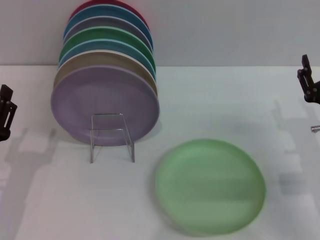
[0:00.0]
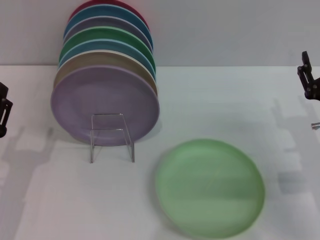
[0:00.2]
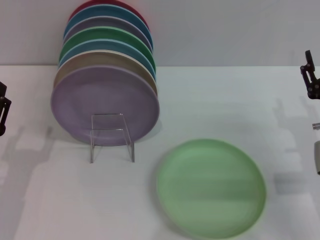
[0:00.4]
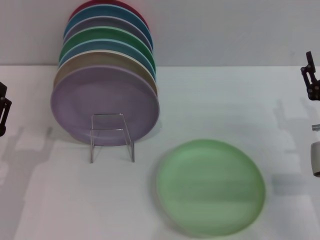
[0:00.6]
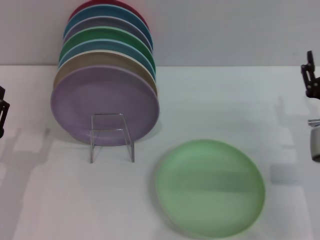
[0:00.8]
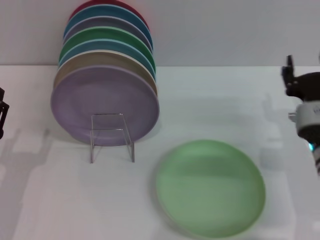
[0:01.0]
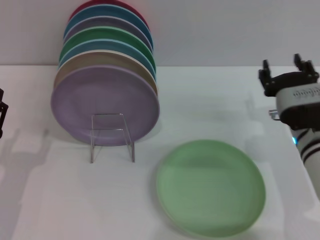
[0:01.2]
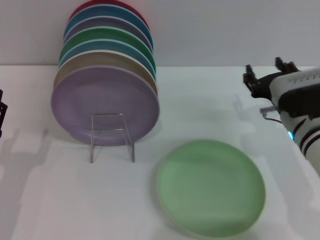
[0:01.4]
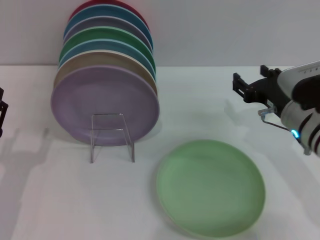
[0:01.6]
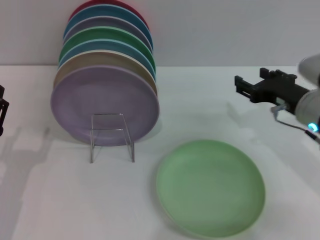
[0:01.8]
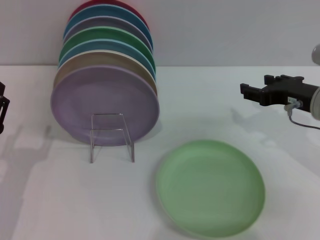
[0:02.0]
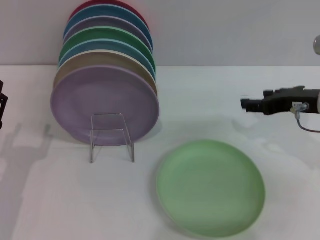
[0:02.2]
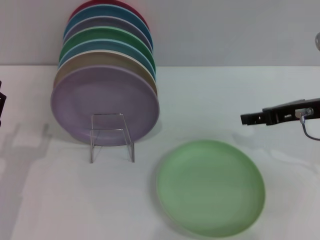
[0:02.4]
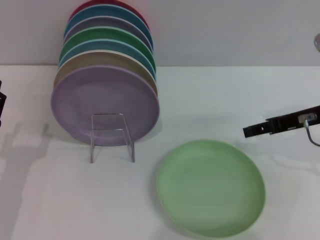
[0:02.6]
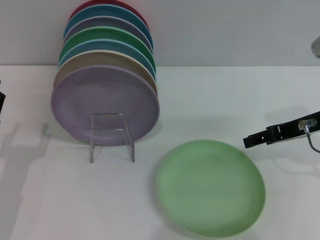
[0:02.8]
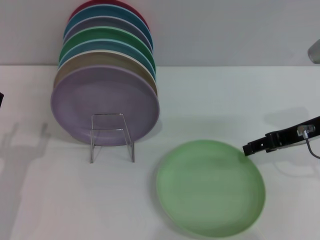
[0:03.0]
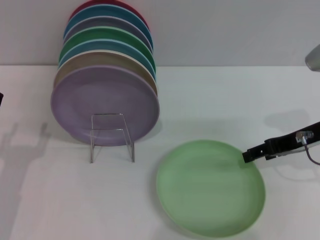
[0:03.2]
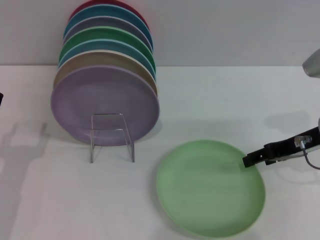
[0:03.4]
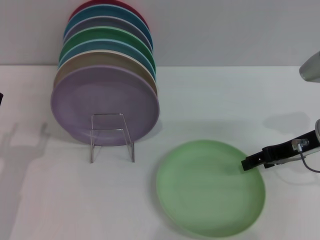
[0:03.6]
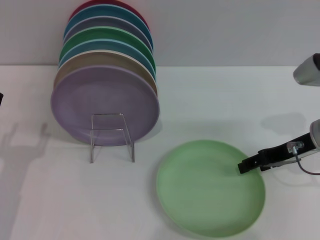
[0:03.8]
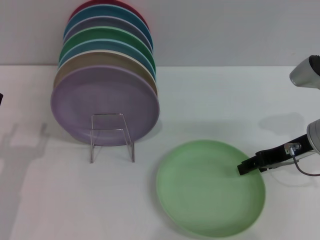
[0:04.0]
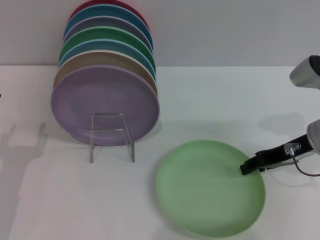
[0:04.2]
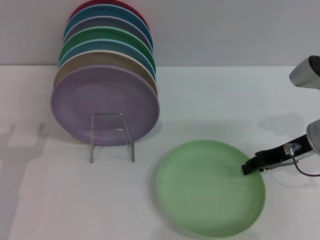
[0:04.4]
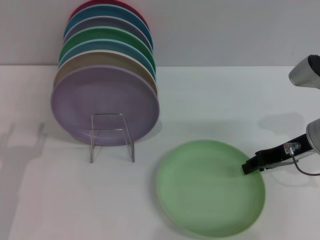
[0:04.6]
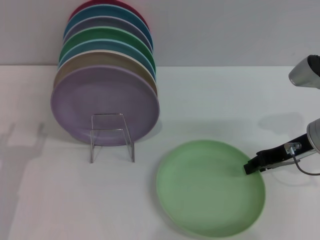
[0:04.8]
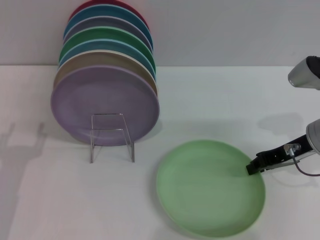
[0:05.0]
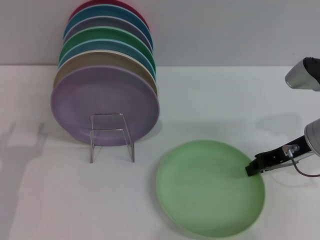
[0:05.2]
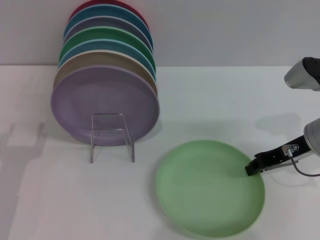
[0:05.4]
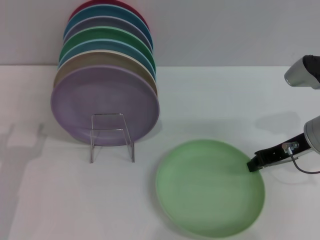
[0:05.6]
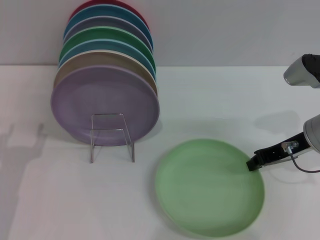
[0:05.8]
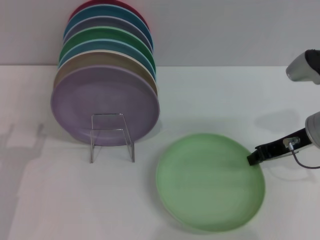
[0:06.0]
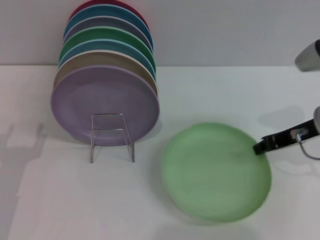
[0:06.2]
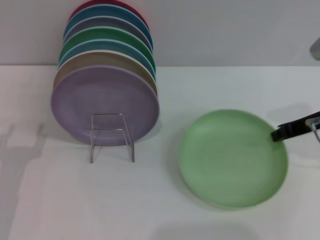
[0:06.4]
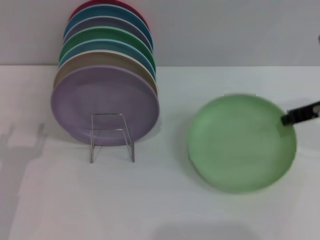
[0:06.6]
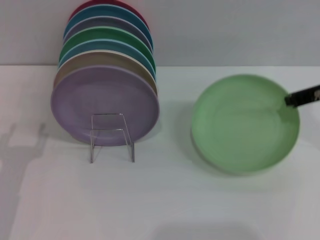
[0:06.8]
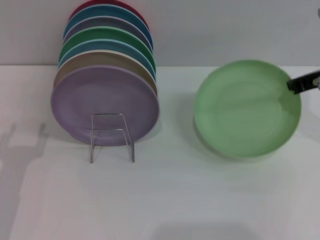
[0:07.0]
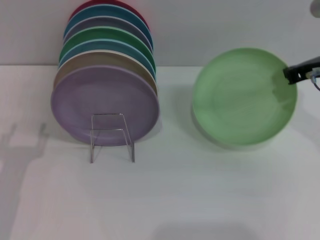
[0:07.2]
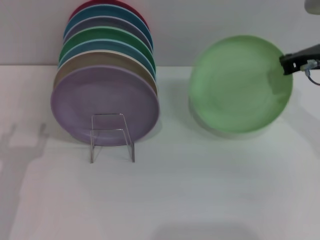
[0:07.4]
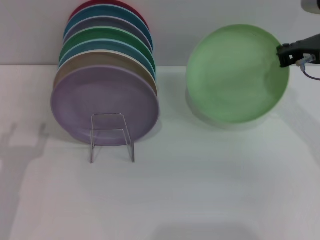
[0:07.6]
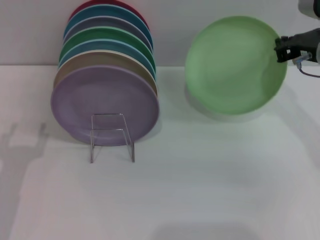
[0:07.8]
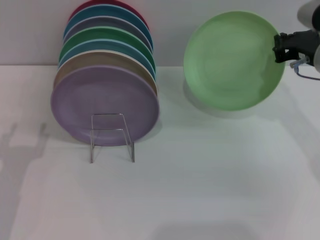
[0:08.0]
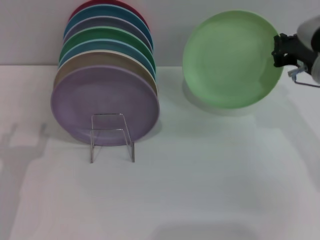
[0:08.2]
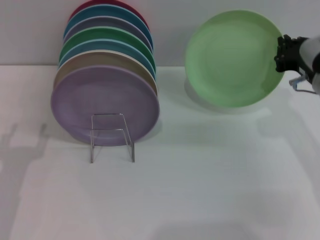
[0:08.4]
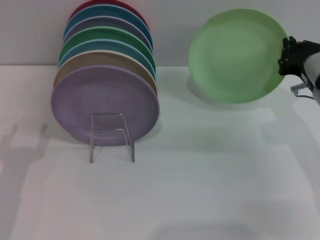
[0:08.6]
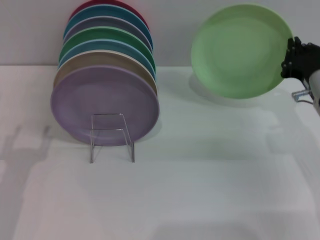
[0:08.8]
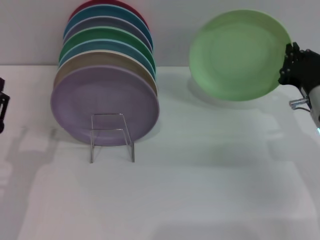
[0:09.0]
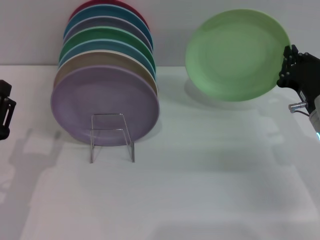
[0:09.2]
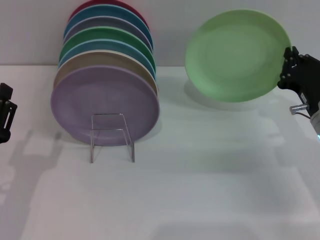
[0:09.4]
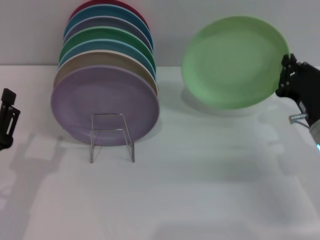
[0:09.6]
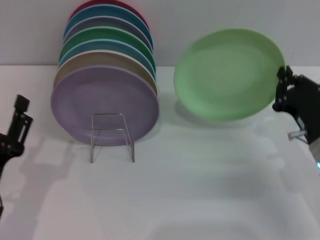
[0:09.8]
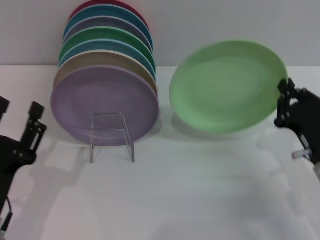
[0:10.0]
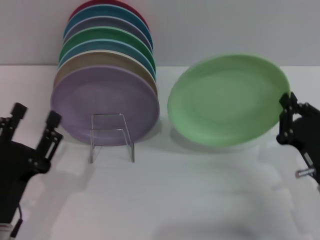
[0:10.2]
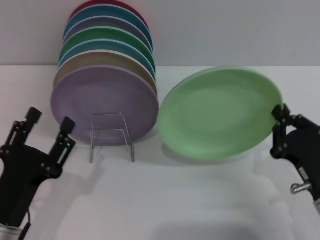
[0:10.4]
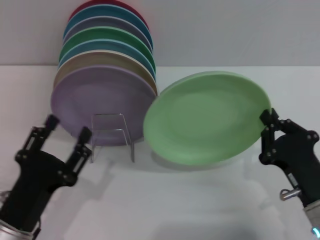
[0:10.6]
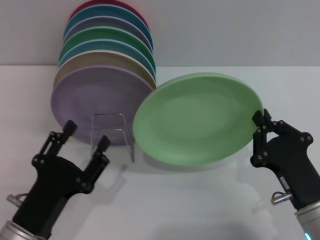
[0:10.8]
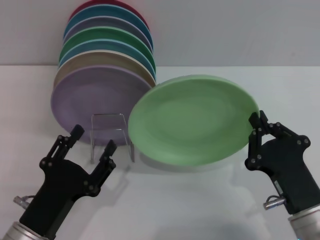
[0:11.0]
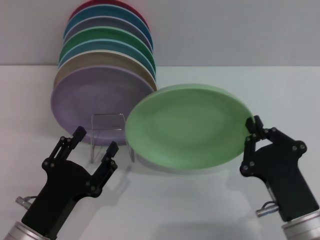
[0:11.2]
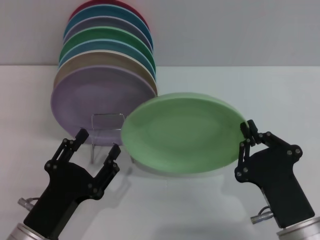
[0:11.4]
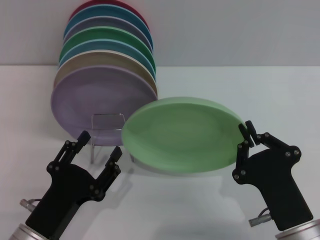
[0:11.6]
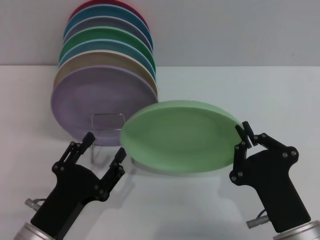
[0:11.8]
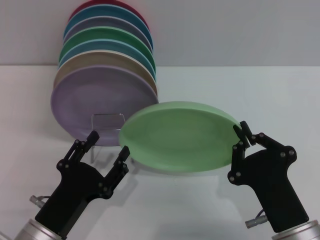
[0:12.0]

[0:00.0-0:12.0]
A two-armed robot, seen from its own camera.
Task of the whole recording: Grip the plate with one hand, pass it to the other, then set it on the shelf.
Step, 0:00.0 to 0:06.6: Pick up the plate with the right gripper.
0:00.0 to 0:01.6: The right gripper is displaced to the left by about 5 cm.
0:01.6 to 0:03.0: The right gripper travels upward and to the right by roughly 10 cm.
0:03.0 to 0:04.4: The grippers stay close to where they were, moving slightly.
0:04.4 to 0:06.0: The right gripper closes.
0:06.0 to 0:07.6: The right gripper moves upward, some 5 cm.
0:07.6 to 0:09.0: The right gripper moves downward and backward, about 15 cm.
0:09.0 to 0:10.4: The left gripper ends up roughly 5 cm from where it was; the right gripper goes roughly 10 cm backward.
0:10.4 to 0:12.0: The right gripper heads to the left and backward, covering approximately 10 cm.

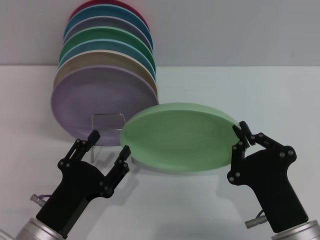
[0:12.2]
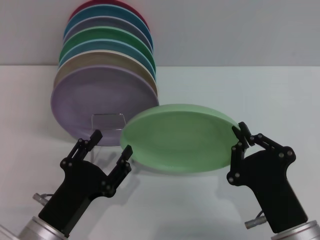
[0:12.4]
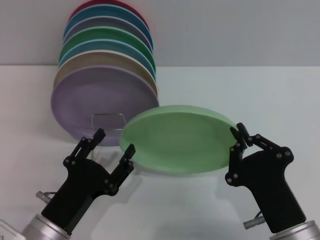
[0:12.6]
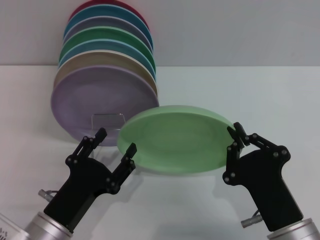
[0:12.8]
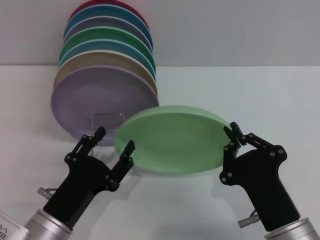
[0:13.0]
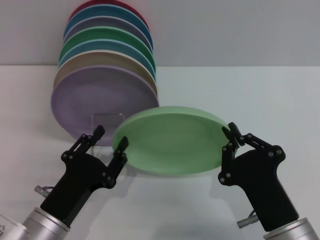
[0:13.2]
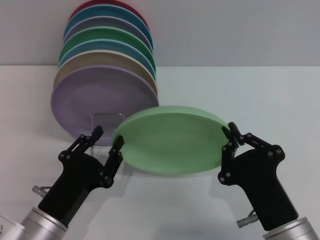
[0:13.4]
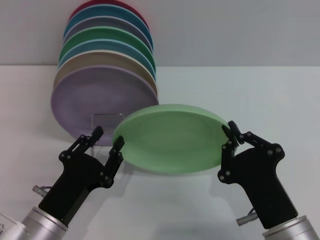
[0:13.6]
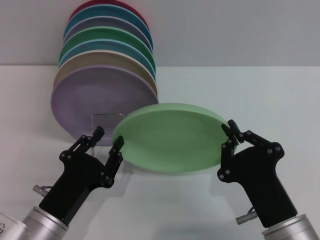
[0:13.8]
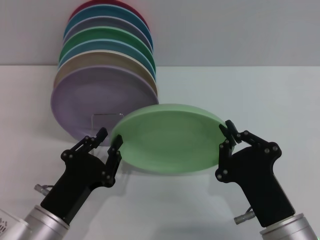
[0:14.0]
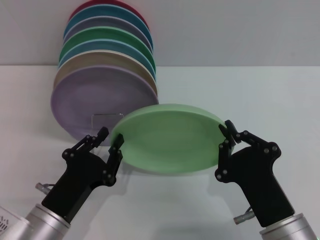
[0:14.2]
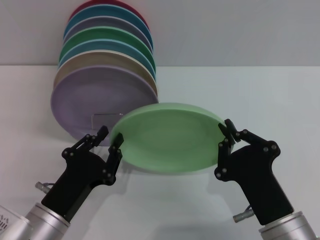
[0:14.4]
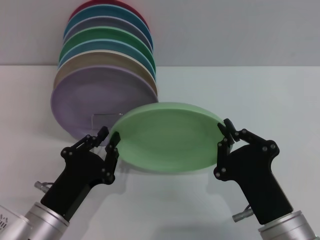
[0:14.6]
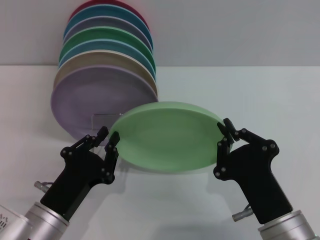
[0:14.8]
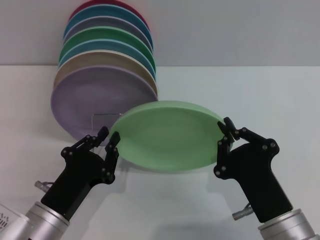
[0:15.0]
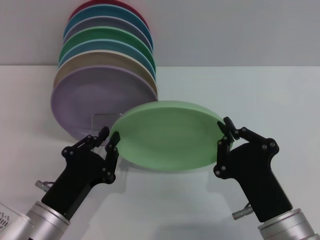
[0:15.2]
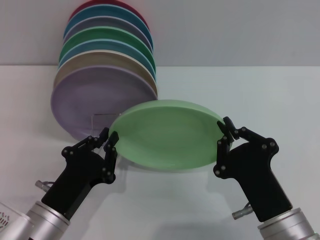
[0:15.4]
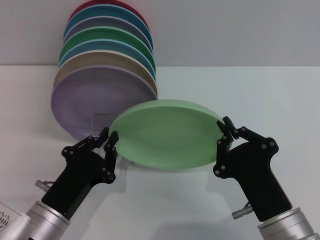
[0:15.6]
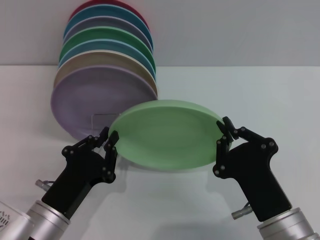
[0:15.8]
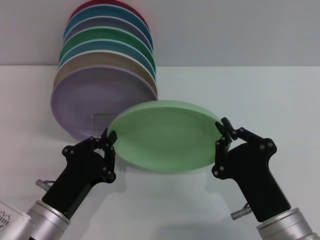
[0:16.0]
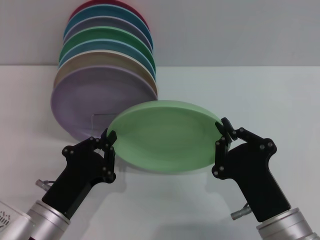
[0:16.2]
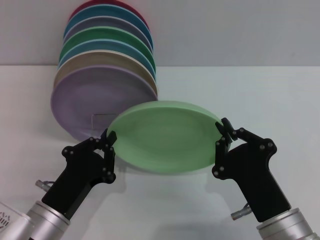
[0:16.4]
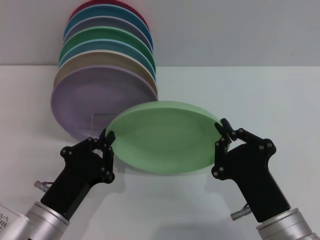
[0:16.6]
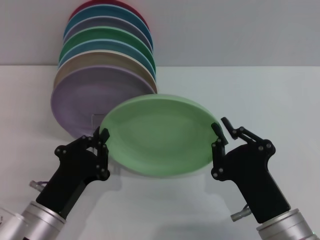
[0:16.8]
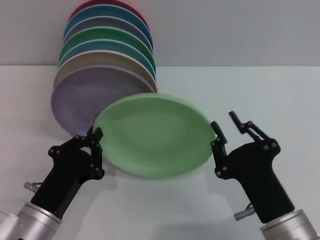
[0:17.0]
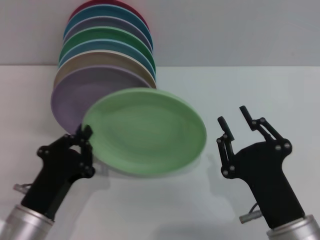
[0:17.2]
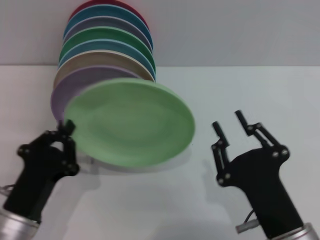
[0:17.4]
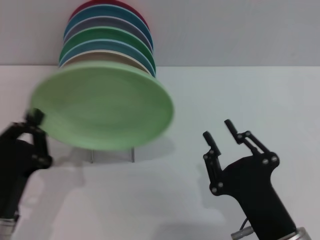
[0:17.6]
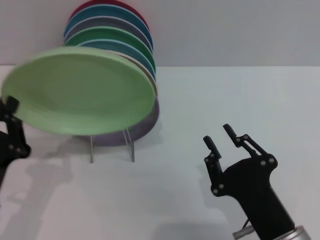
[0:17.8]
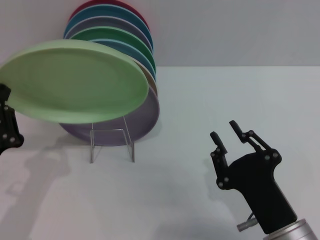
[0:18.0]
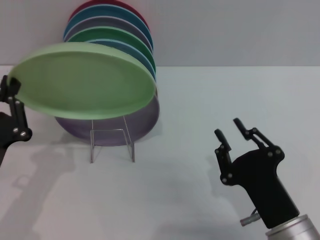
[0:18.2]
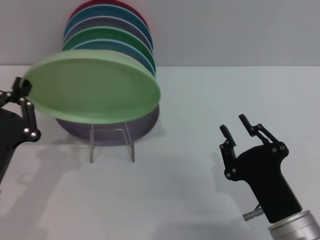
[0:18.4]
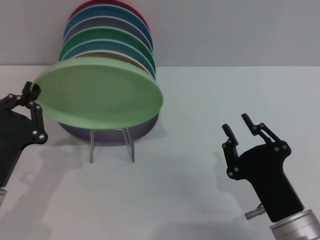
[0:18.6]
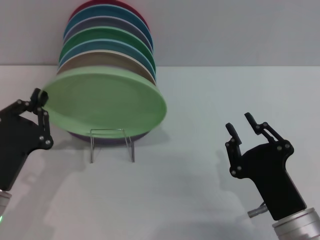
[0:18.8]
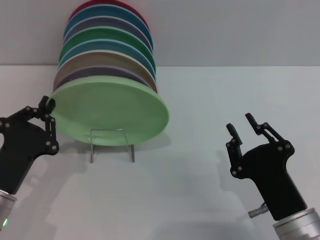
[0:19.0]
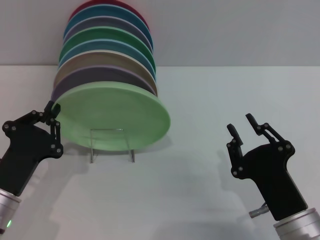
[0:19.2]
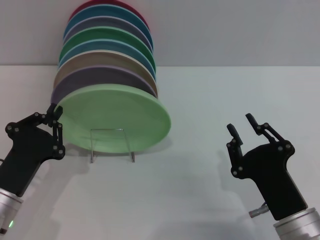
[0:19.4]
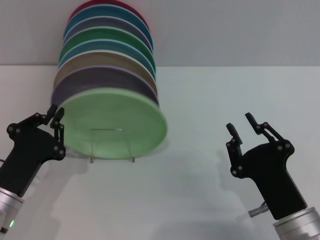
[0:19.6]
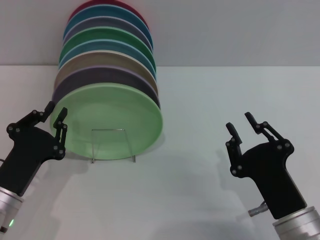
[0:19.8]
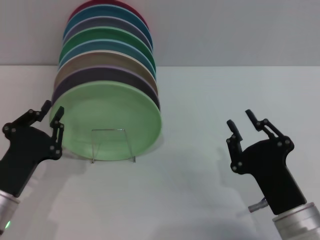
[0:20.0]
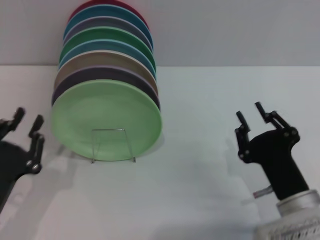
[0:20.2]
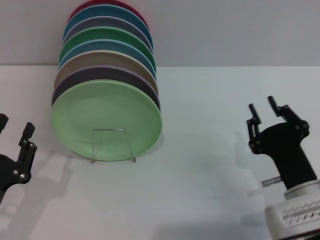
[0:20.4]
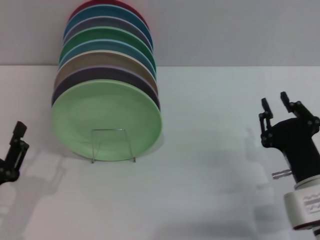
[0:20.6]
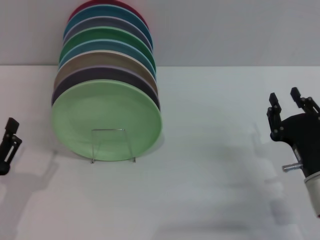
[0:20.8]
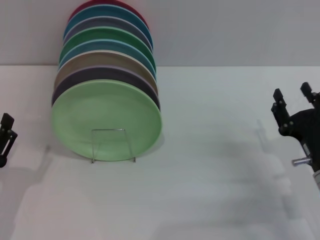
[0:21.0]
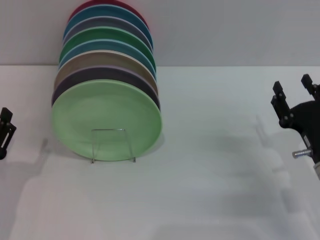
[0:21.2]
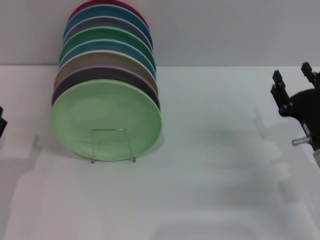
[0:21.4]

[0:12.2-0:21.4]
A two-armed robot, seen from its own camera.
Task of the whole recording: Grip the plate with one hand, pass it to the other, then set it on the shelf.
Step, 0:12.2 to 0:17.4: Pass the plate from the right gripper to the left gripper.
Step, 0:17.6 to 0:20.0: Place the plate on the shelf with the left gripper.
0:12.2 to 0:13.8: There are only small adjustments of the grippers.
0:13.8 to 0:15.2: The left gripper closes up.
0:15.2 to 0:16.8: Both grippers stay put.
0:16.8 to 0:18.4: The right gripper opens, while the left gripper moves to the left, some 5 cm.
0:18.4 to 0:19.8: The grippers stay close to where they were, moving slightly.
0:19.8 to 0:21.4: The right gripper shifts roughly 15 cm forward and to the right, and opens up, while the left gripper ends up some 5 cm from where it was, and opens up.
